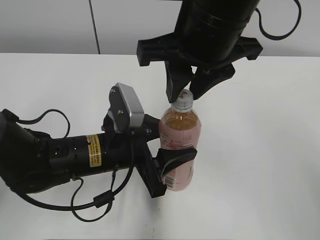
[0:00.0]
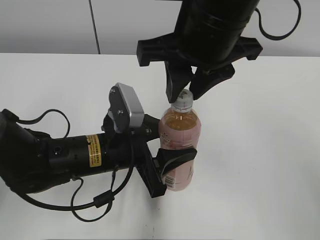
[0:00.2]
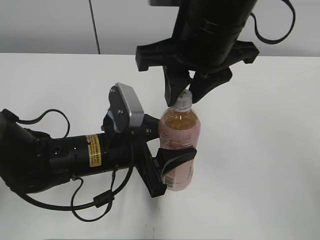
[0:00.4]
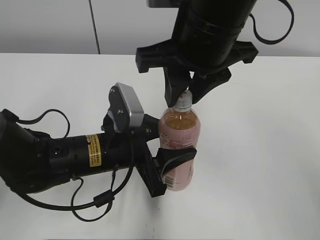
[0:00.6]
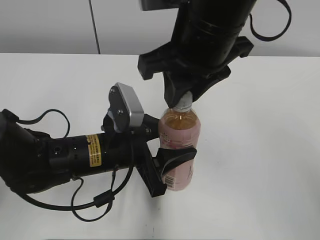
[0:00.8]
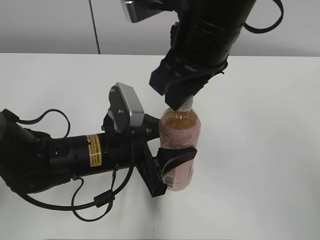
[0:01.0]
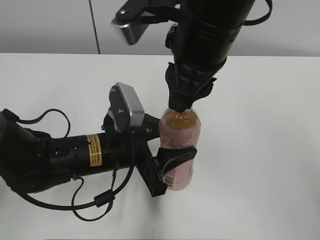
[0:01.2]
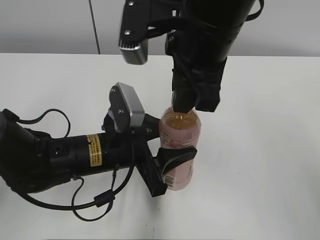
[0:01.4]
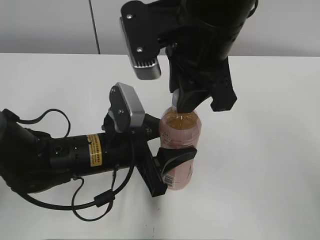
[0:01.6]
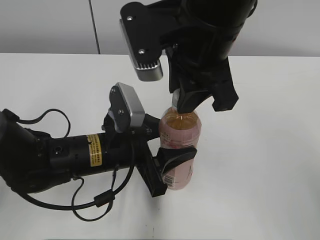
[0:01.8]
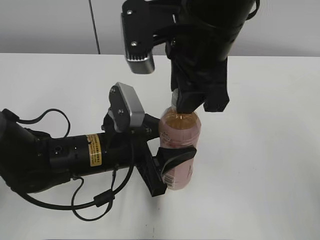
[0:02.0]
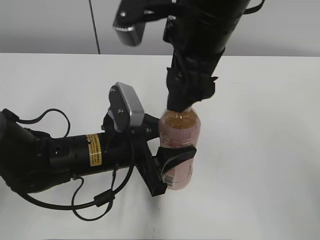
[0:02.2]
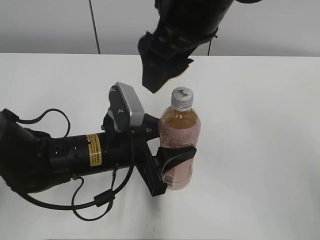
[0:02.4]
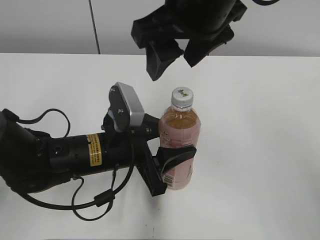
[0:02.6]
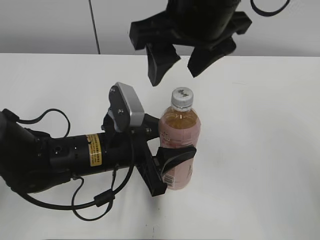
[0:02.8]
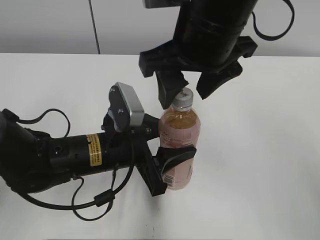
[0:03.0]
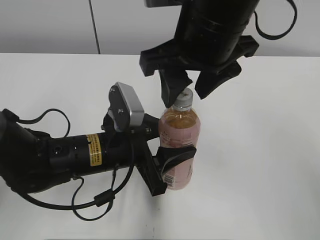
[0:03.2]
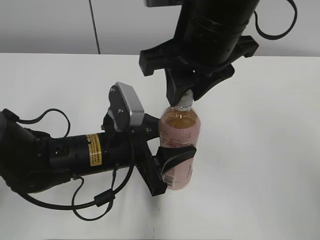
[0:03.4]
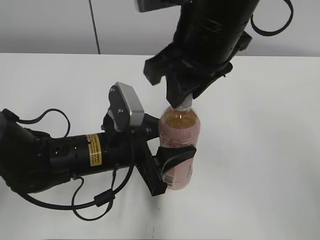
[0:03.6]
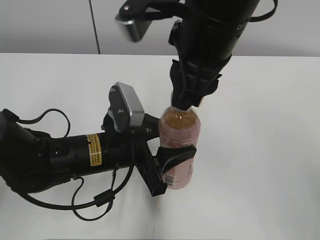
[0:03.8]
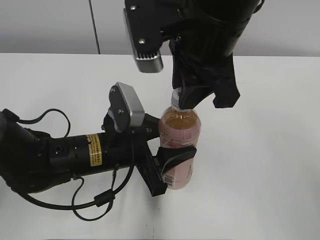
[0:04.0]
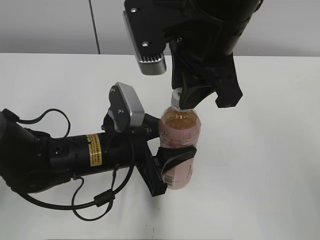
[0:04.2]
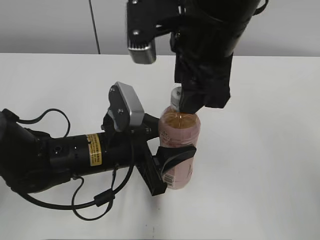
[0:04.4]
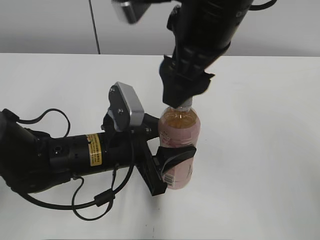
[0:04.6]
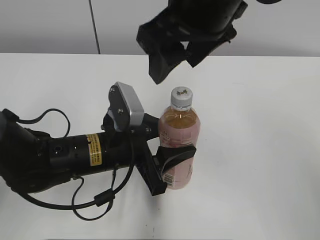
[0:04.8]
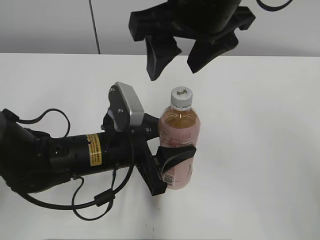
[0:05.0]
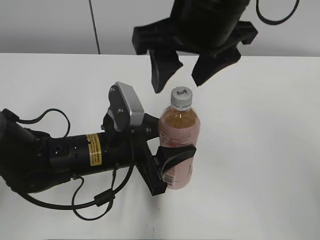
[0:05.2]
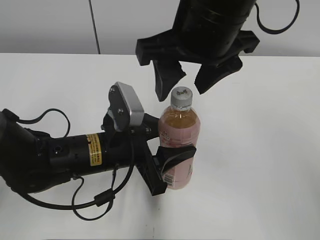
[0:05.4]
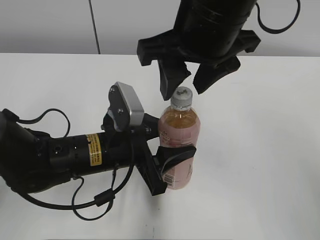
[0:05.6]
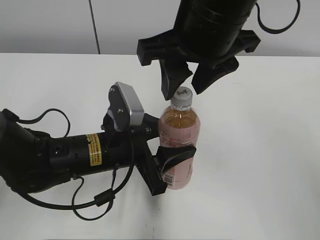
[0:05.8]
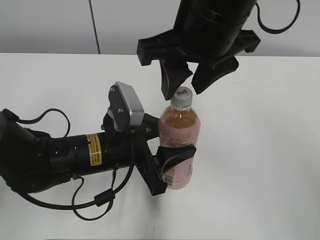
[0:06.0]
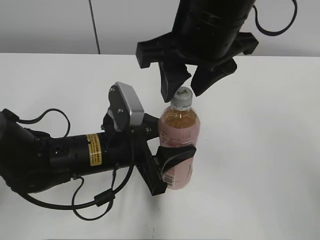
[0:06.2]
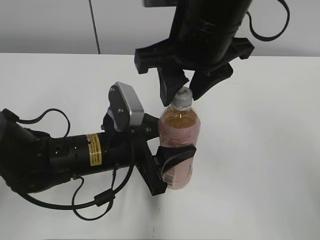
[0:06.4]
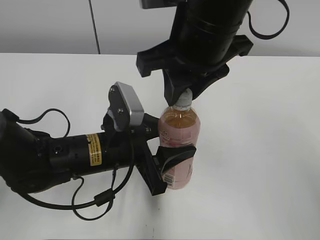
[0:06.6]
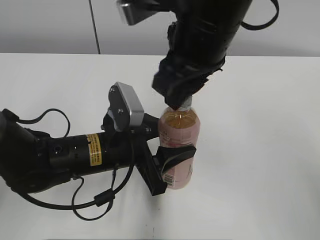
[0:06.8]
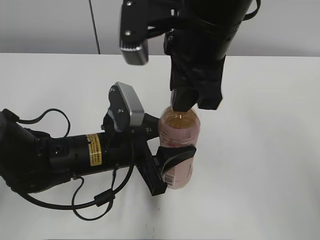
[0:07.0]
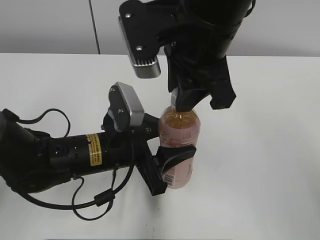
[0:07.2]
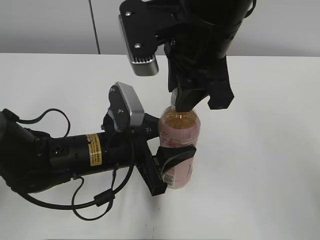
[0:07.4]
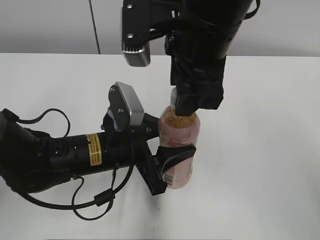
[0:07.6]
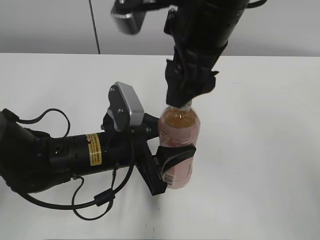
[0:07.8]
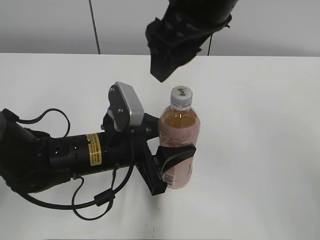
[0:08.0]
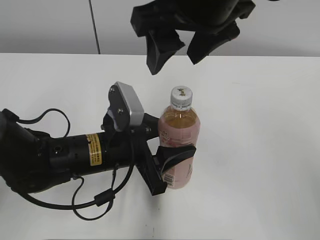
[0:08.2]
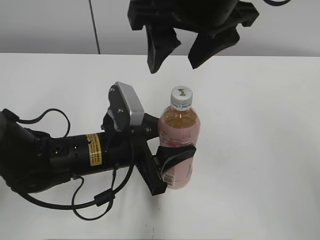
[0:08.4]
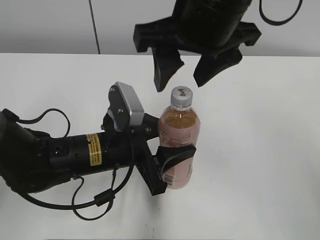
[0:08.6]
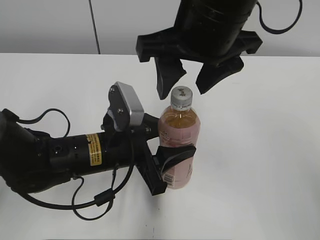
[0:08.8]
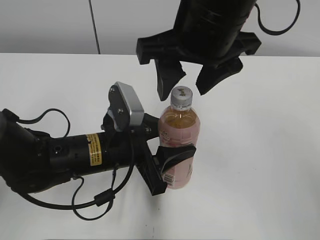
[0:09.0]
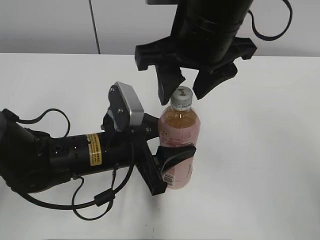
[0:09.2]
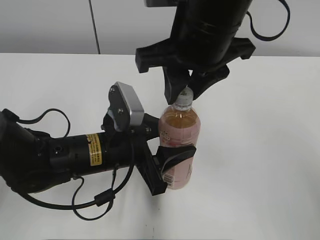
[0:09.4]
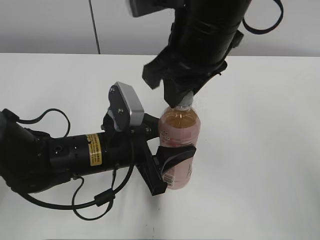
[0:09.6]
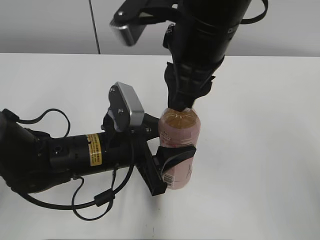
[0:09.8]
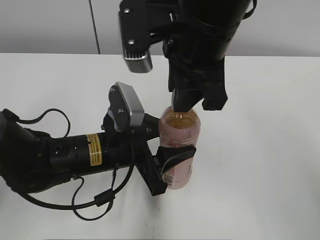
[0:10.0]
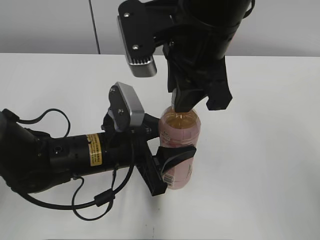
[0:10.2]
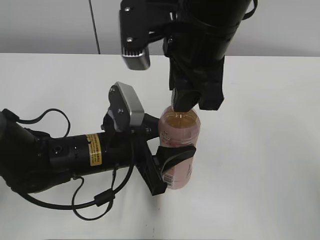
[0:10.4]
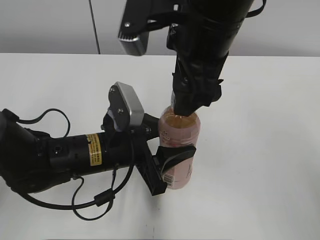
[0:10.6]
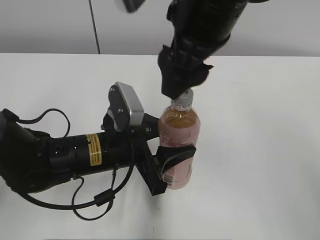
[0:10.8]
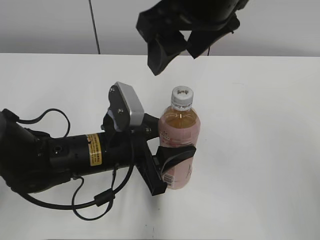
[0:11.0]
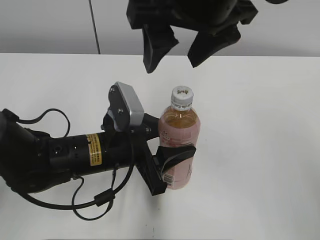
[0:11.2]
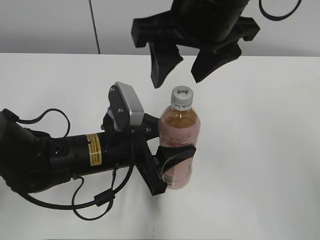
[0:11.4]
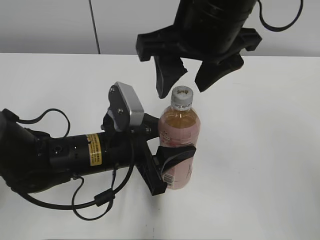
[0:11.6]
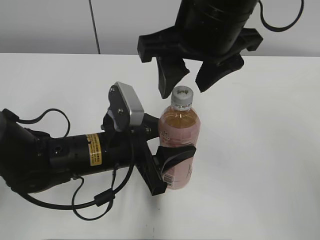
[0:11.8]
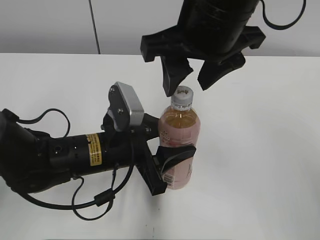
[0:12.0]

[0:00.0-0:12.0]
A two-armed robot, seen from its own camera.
0:01.6 to 0:03.0: The right gripper opens up.
0:03.0 to 0:04.4: The right gripper closes.
0:04.4 to 0:06.0: The right gripper opens, then closes once more.
0:06.0 to 0:07.6: The right gripper closes, then opens again.
0:09.0 to 0:10.4: The right gripper closes.
0:10.4 to 0:12.0: The right gripper opens.

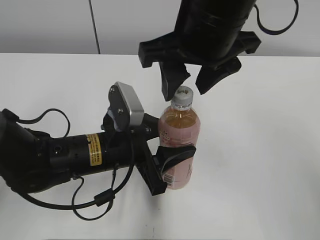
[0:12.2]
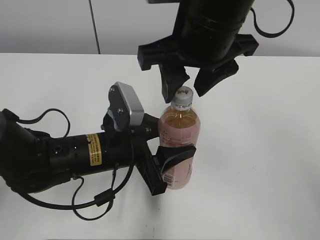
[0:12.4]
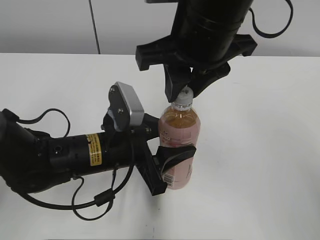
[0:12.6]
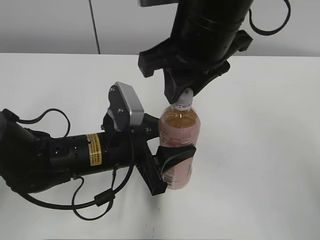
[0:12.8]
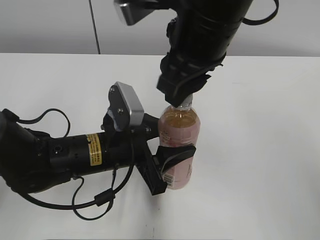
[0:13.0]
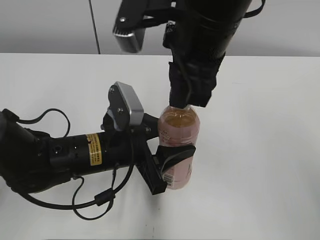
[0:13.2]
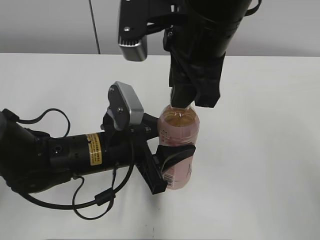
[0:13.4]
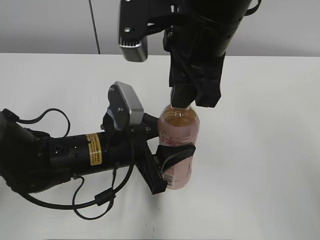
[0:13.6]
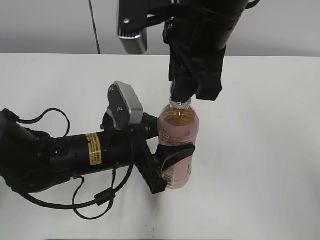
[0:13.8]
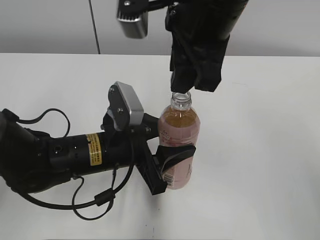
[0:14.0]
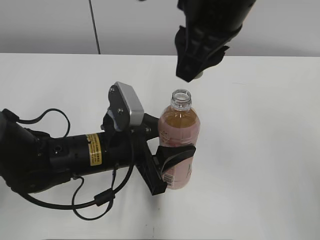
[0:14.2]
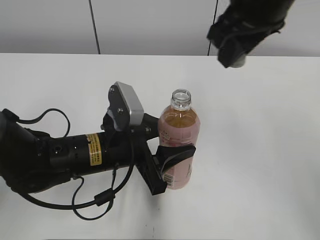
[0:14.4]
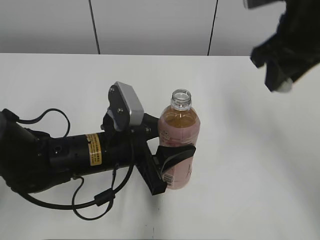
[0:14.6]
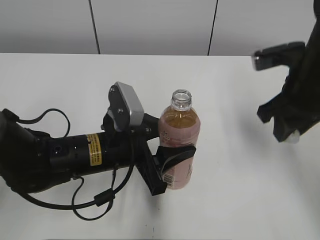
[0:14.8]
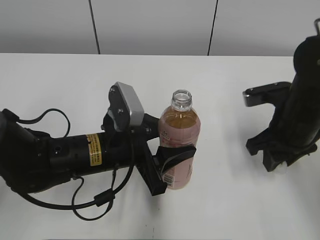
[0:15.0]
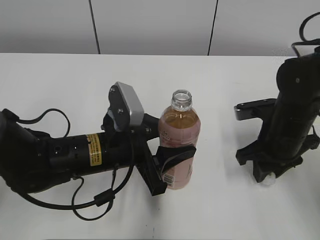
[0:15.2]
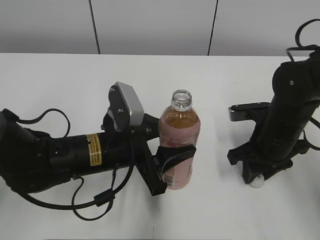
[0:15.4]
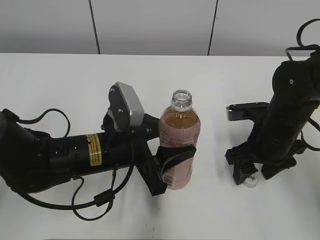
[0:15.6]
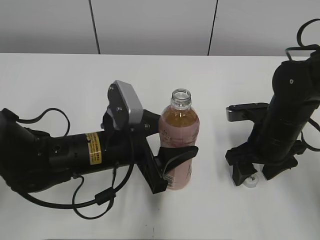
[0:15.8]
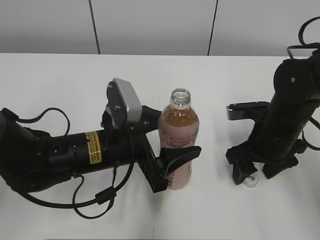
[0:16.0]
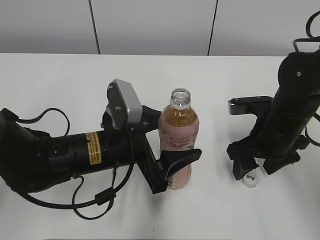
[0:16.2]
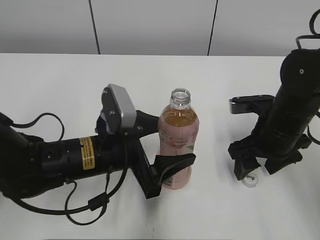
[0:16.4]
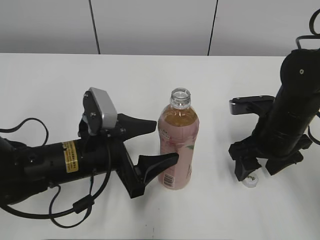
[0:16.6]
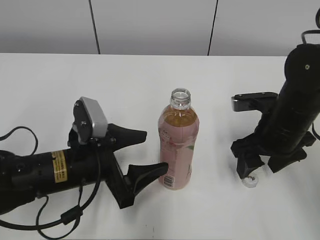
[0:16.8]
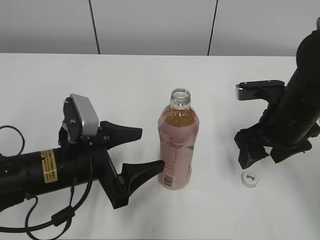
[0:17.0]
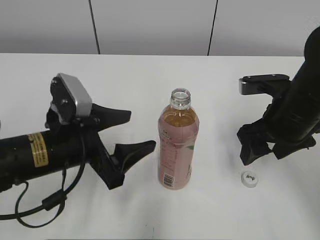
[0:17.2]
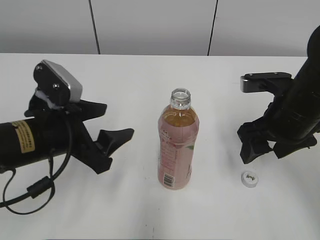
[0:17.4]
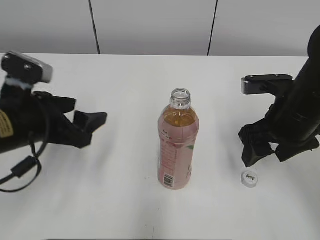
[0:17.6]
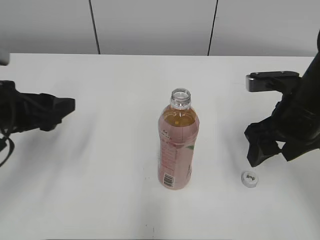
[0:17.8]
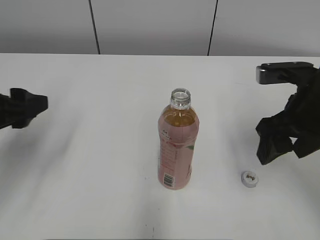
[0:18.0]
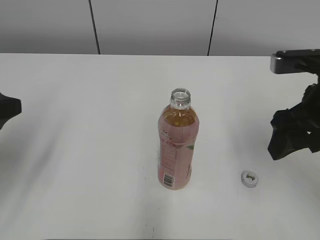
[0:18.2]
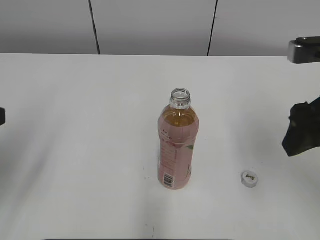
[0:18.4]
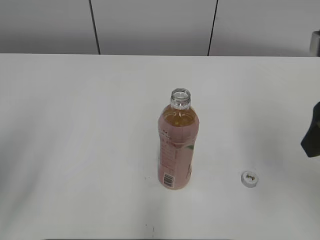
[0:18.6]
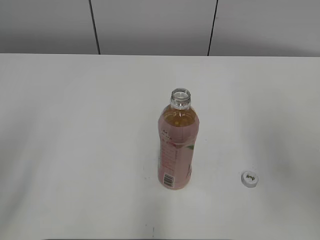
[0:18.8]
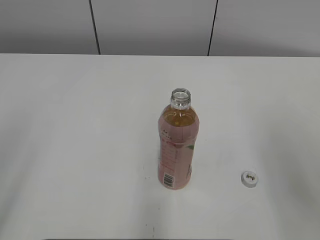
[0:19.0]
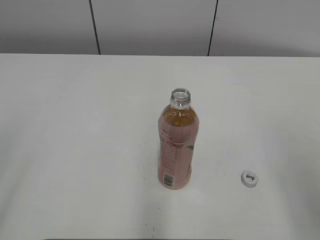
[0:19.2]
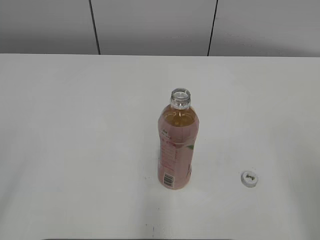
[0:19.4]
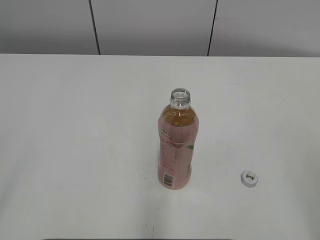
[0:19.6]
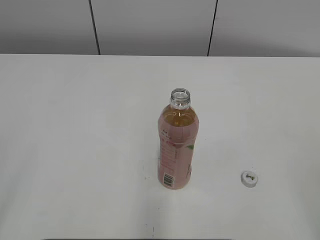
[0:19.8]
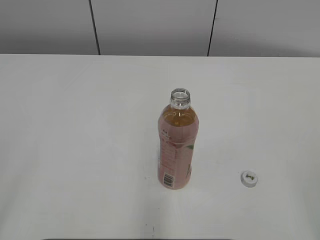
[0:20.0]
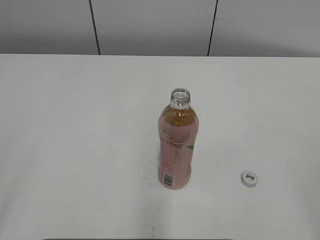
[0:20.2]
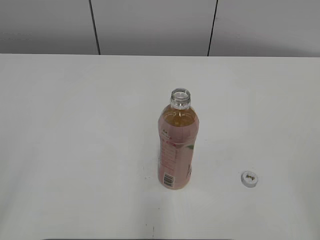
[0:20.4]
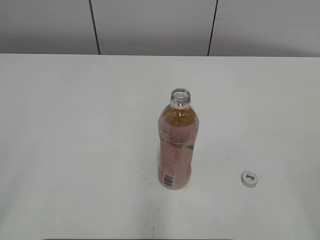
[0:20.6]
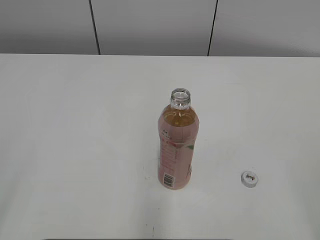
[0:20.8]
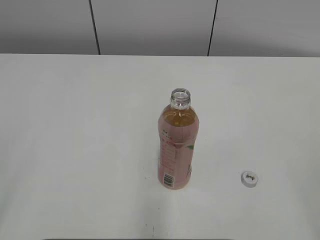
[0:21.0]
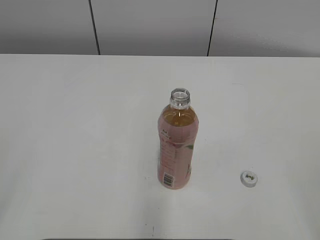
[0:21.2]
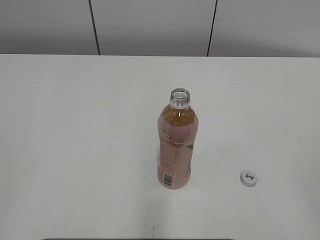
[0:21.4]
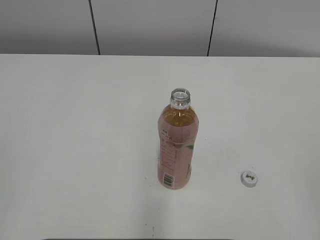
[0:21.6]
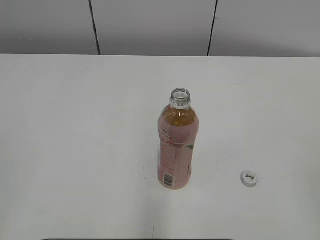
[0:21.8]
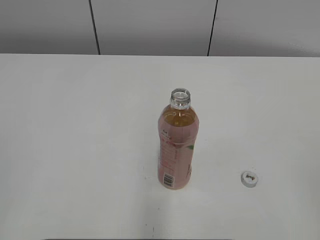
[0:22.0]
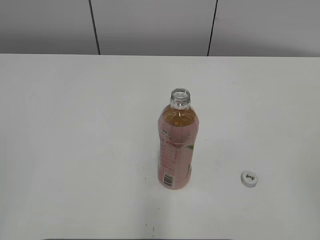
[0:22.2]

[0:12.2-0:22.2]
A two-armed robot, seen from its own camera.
Step, 0:14.0 to 0:15.4: Place the bottle cap on the right.
Step, 0:15.6 to 0:15.8: Place the Peach Oolong Tea with the left hand.
0:12.2 to 0:13.6: The right gripper closes up.
0:13.6 to 0:15.0: The right gripper is displaced to the right and downward by roughly 20 cm.
0:15.0 to 0:16.4: The right gripper opens its fingers. Meanwhile the left gripper opens its fingers.
0:16.4 to 0:18.0: The left gripper shifts some 20 cm to the left and upward. The right gripper moves upward, about 10 cm.
0:18.0 to 0:19.4: The left gripper moves backward and upward, some 20 cm. Meanwhile the right gripper shifts some 20 cm backward and to the right.
